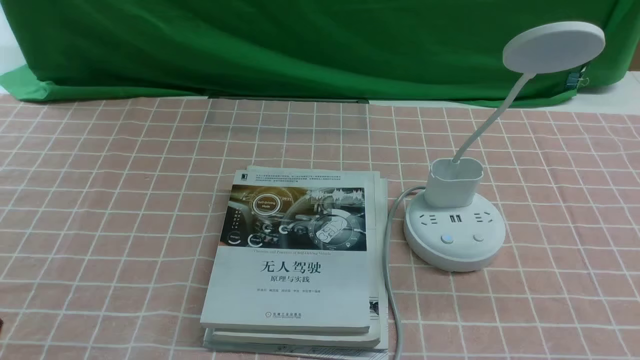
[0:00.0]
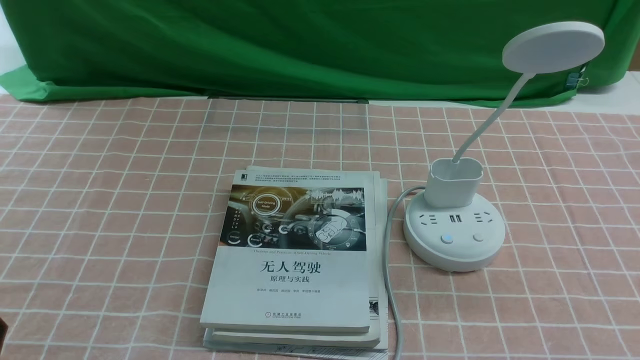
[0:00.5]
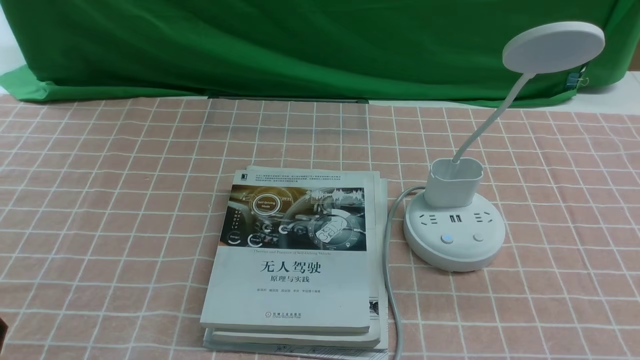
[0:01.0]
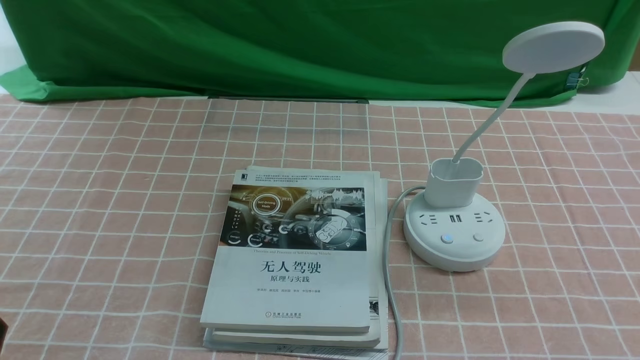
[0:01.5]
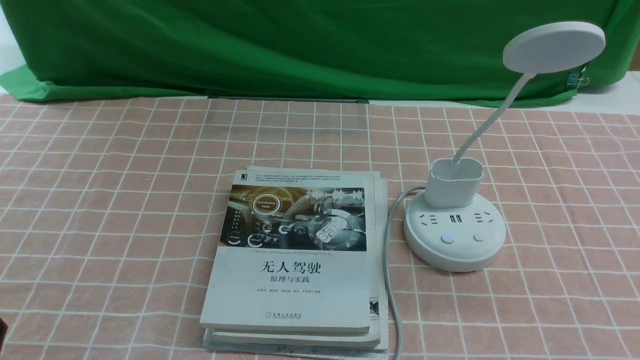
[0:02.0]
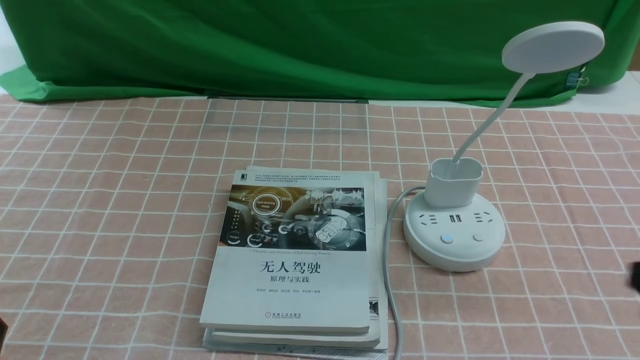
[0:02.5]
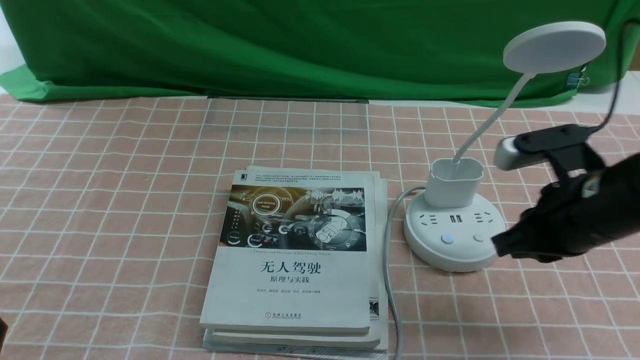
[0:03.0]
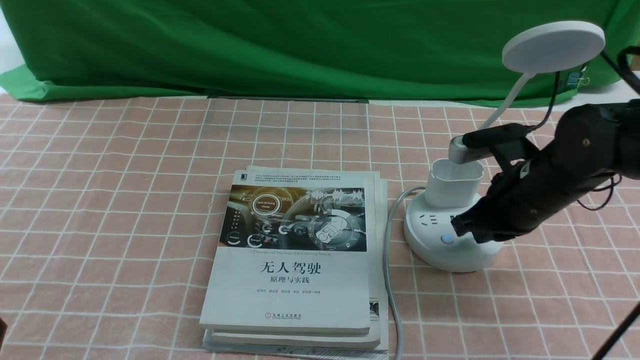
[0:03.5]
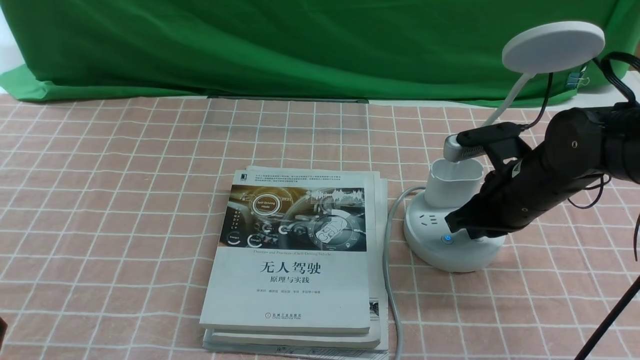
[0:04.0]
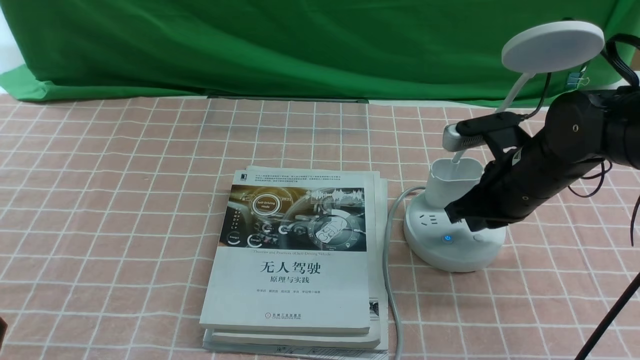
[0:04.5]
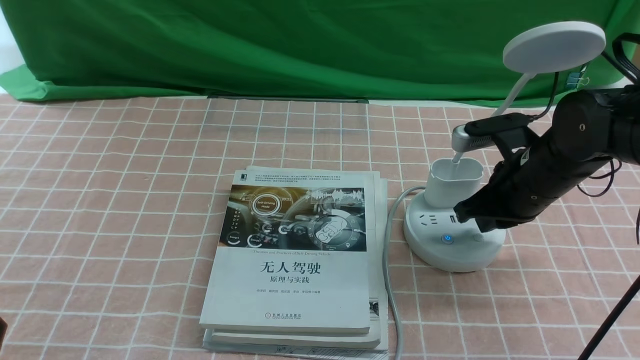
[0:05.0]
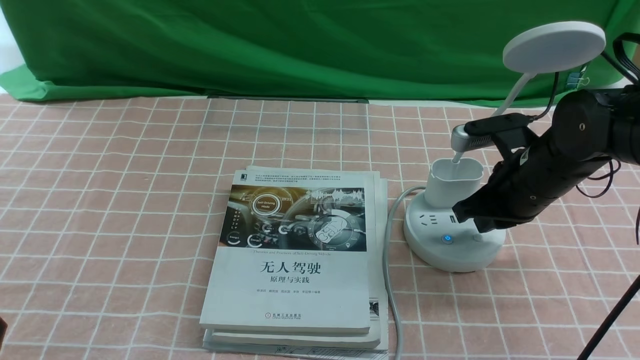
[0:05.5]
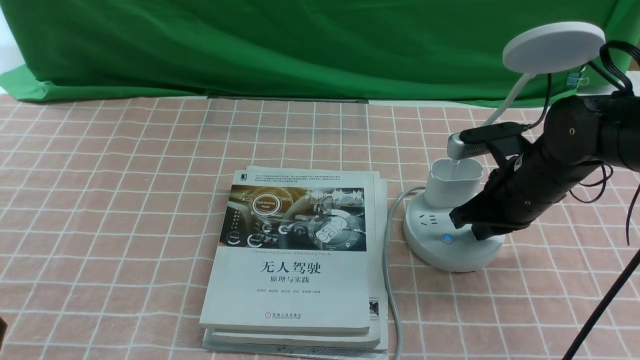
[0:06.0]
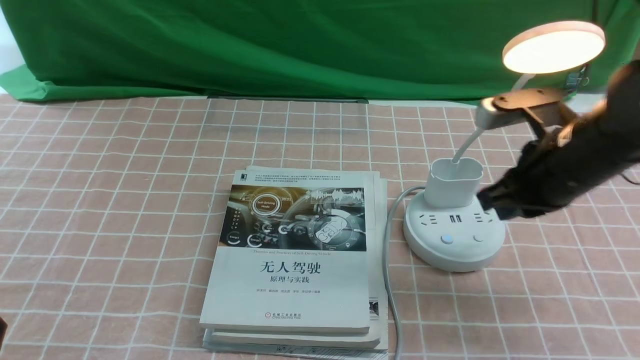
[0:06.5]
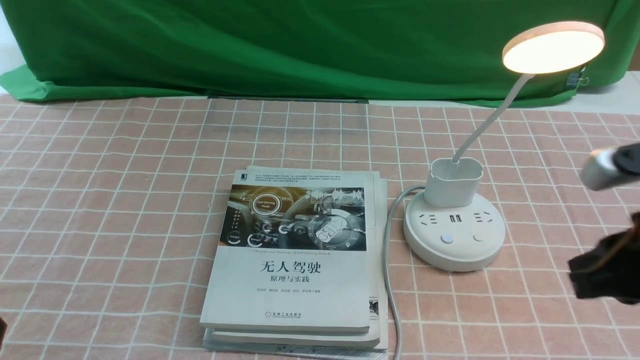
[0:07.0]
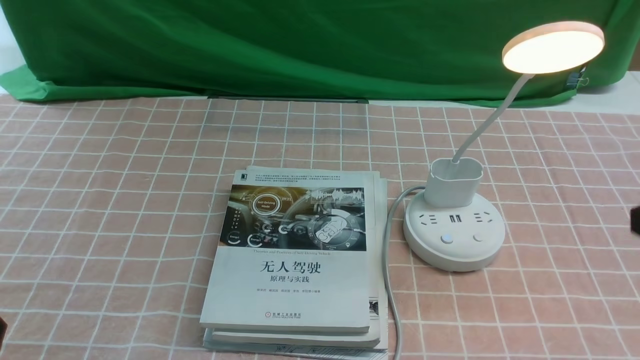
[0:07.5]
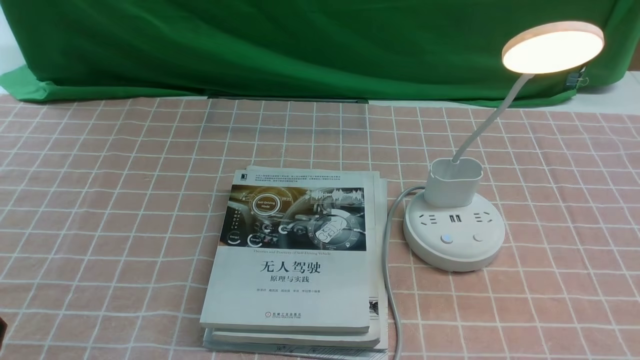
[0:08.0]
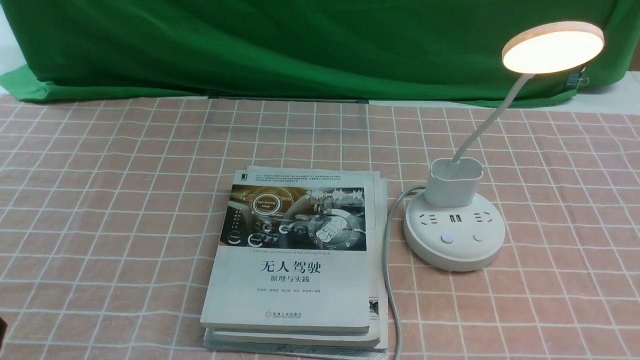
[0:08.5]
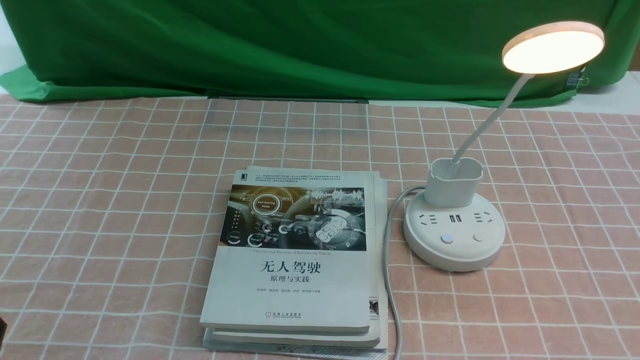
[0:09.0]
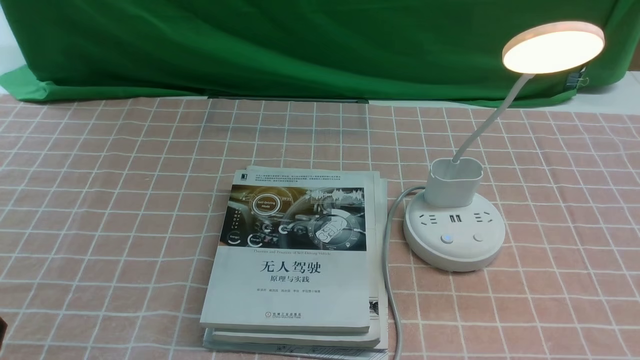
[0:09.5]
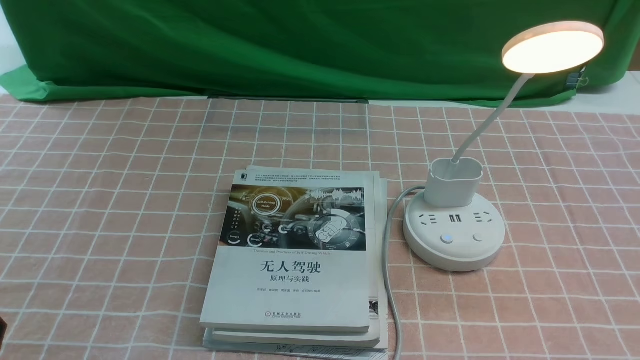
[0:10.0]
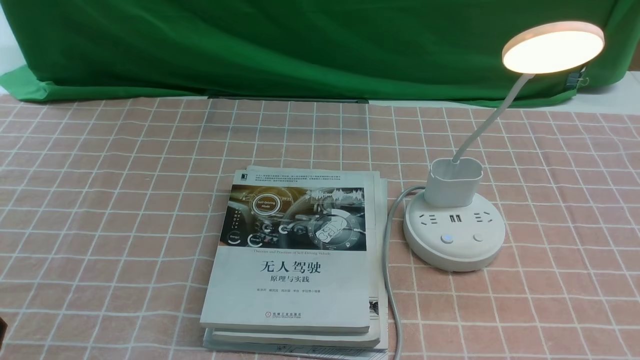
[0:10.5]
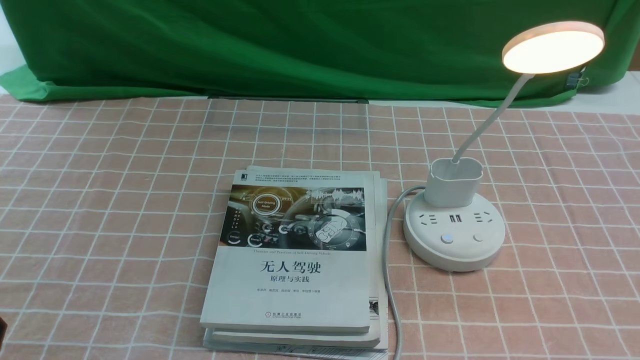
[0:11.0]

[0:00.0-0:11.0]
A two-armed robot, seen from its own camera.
Step, 0:00.0 to 0:06.5: use the right arm to press the button switch on the lamp holder.
0:02.0 to 0:03.5: The right gripper is displaced forward and to the left by approximately 30 cm, and closes.
0:03.5 to 0:05.5: The grippers make only small movements.
0:05.5 to 0:07.5: The right gripper heads backward and upward, covering roughly 25 cm.
